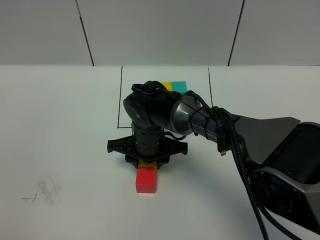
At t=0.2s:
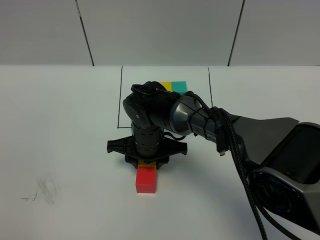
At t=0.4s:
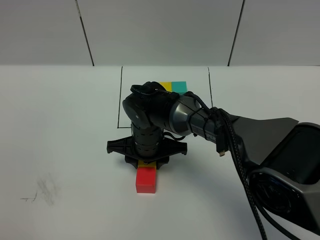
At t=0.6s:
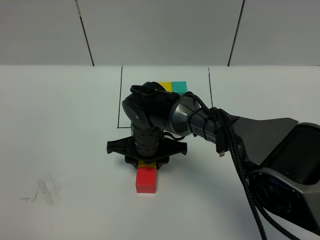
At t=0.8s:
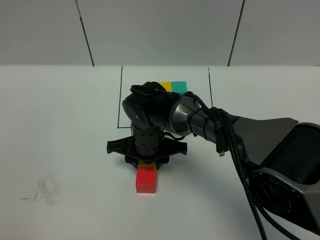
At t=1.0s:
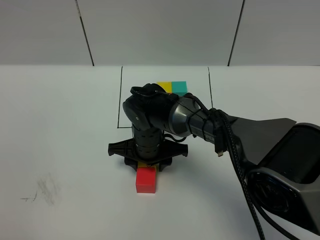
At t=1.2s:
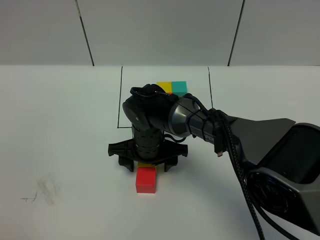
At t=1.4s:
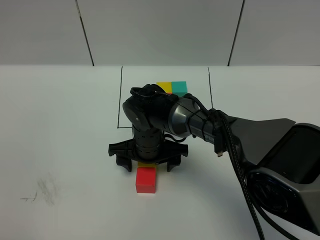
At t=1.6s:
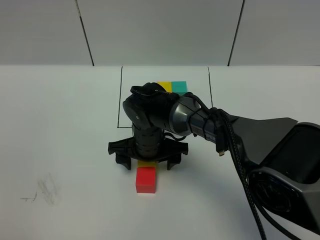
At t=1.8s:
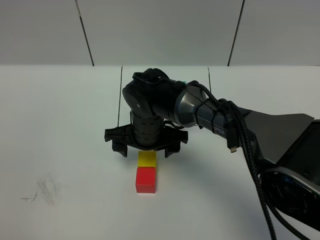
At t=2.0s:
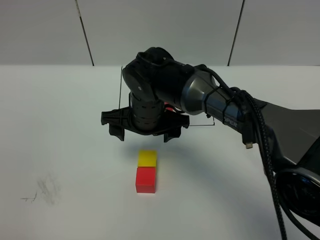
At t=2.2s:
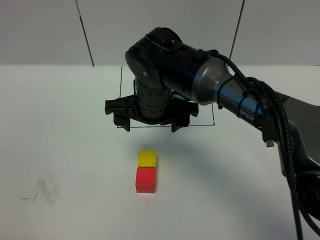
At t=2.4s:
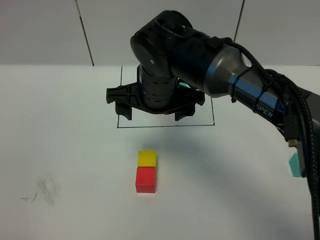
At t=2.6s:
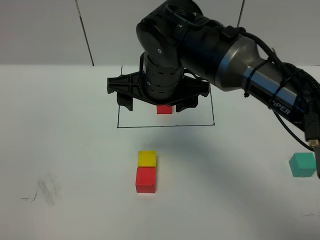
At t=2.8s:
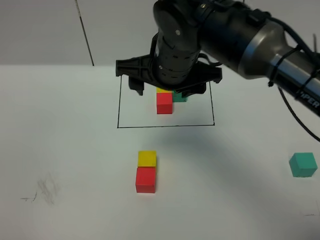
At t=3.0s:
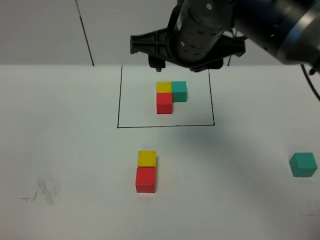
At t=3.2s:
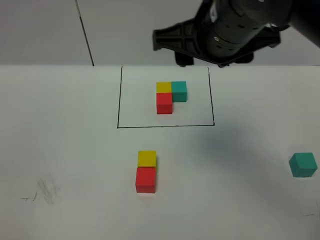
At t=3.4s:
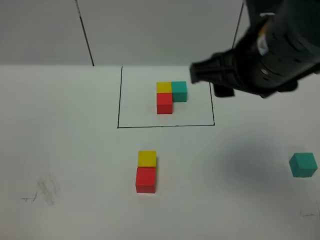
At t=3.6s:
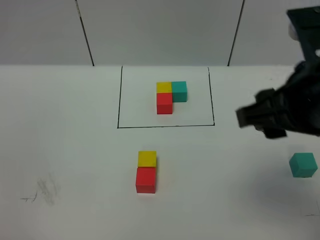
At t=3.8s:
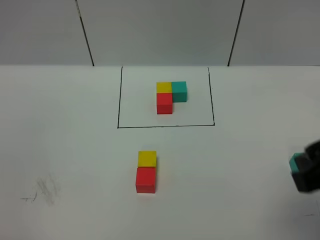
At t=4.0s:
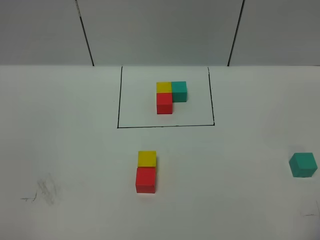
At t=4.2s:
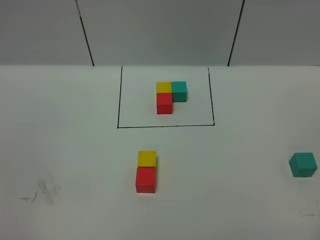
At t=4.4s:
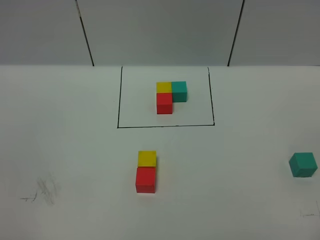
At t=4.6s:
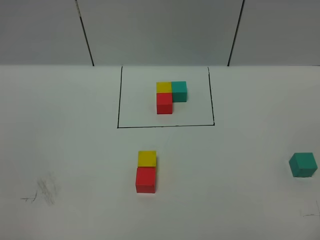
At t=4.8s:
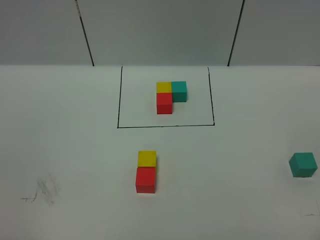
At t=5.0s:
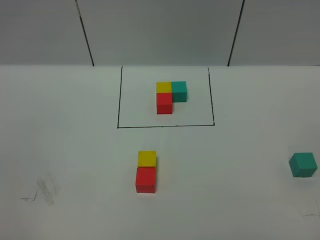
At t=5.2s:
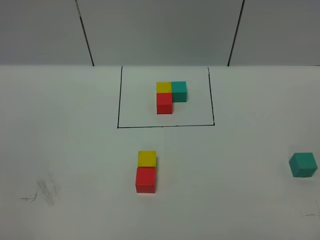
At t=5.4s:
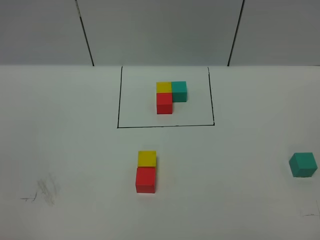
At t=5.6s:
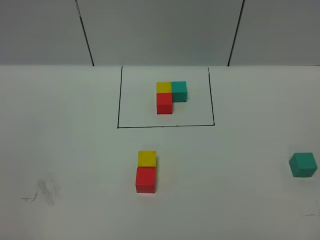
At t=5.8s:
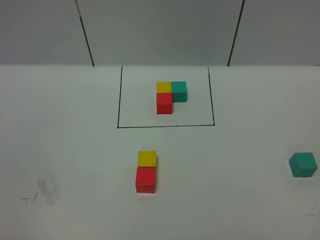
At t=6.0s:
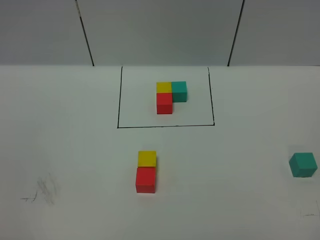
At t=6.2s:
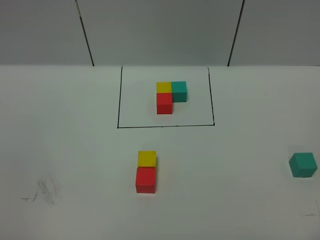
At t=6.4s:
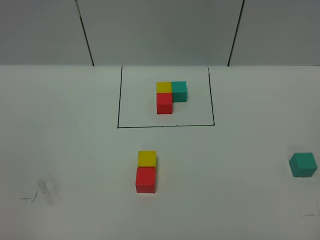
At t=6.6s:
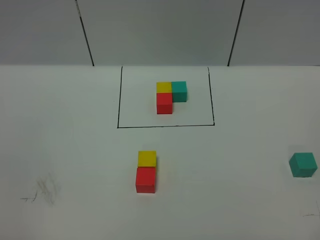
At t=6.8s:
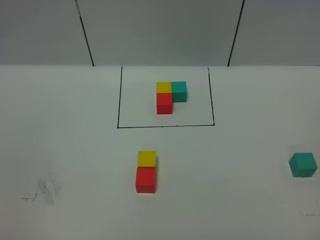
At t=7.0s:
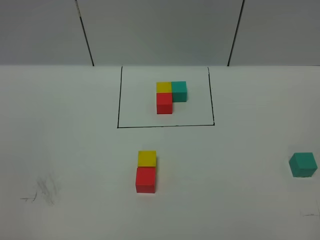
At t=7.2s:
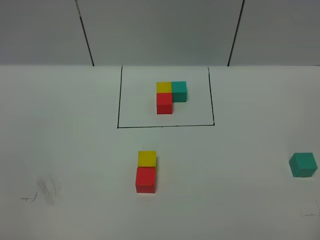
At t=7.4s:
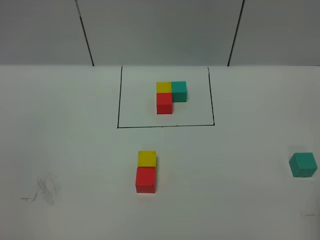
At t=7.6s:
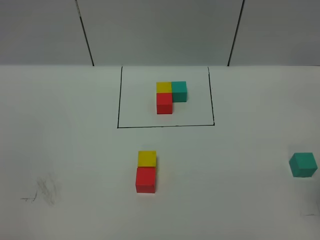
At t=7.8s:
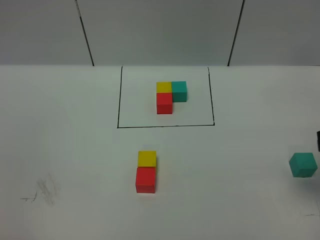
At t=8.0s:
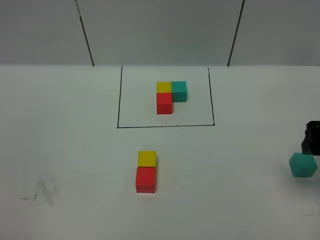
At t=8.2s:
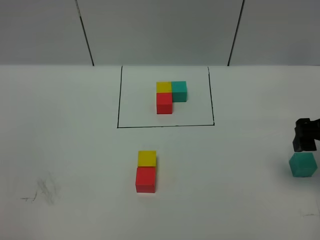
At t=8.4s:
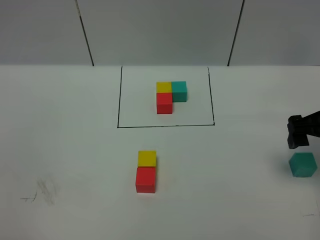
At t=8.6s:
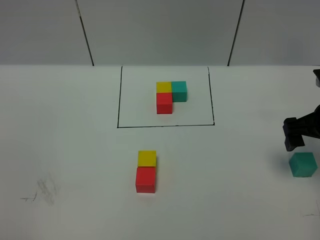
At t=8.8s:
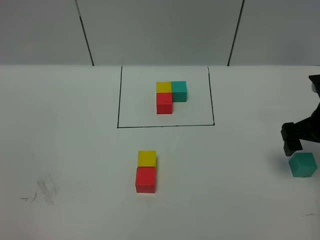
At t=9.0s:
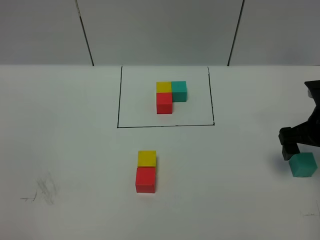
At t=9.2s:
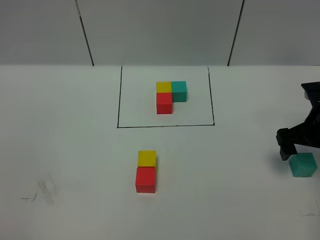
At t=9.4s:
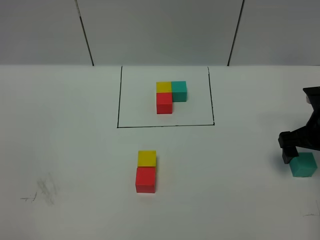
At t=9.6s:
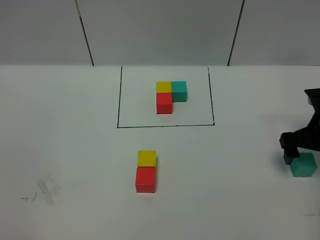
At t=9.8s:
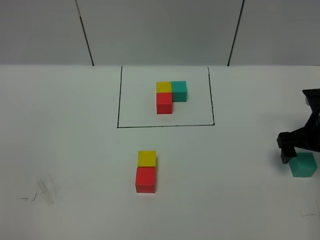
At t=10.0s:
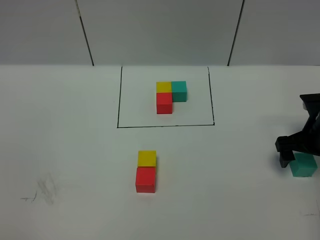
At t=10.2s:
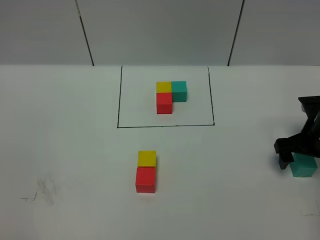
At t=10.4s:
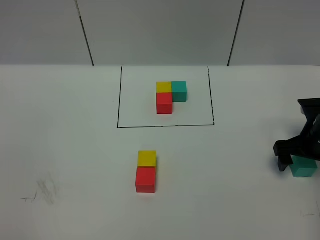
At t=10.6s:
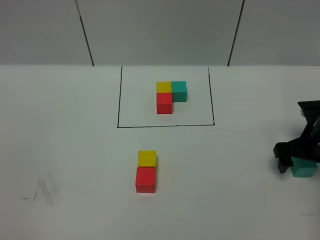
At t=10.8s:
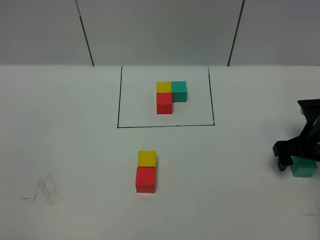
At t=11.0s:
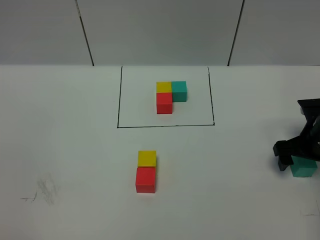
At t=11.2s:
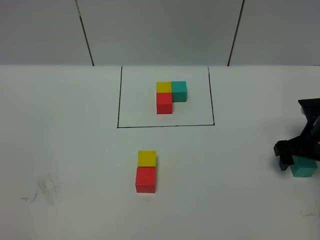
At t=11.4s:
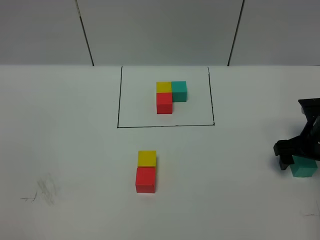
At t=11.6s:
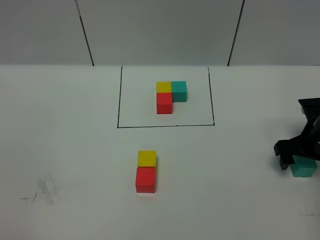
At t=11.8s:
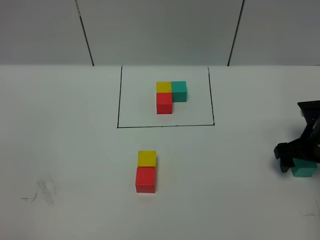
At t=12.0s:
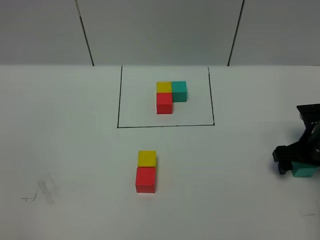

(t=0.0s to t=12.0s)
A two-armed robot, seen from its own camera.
Task of the whole recording: According to the building block template in front, assemble the scattered blocks together.
Step, t=0.0s - t=2.4s: Put the yellow cube in the front of the red cube.
t=0.0s - t=1.6s: The right gripper opens up.
t=1.6s - t=3.0s: The right gripper moves upward, about 25 cm.
t=3.0s - t=4.4s: The right gripper moves backward and to the right, about 35 cm.
t=7.6s - t=9.0s: The right gripper shifts roughly 20 cm forward and downward, and opens.
t=9.0s - t=10.4s: The right gripper heads downward, covering approximately 5 cm.
t=10.4s - t=12.0s: The grippers move only a little.

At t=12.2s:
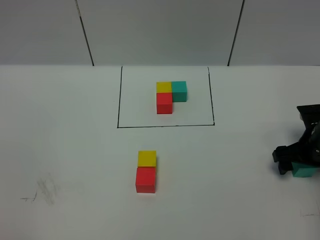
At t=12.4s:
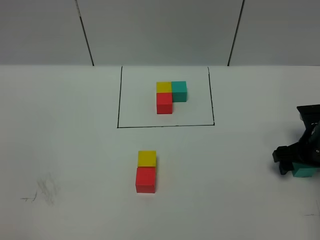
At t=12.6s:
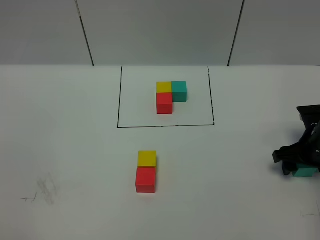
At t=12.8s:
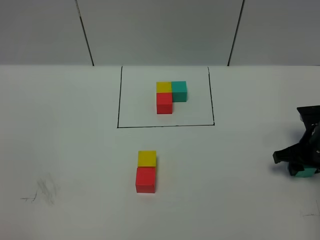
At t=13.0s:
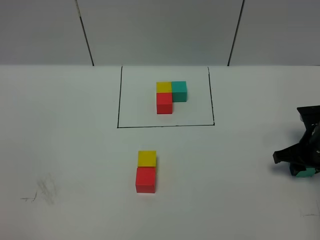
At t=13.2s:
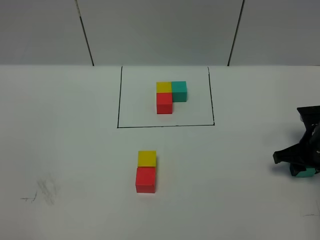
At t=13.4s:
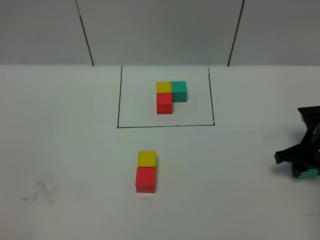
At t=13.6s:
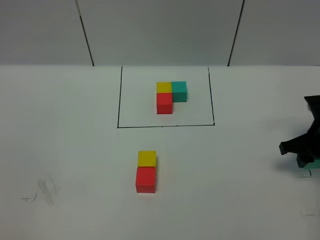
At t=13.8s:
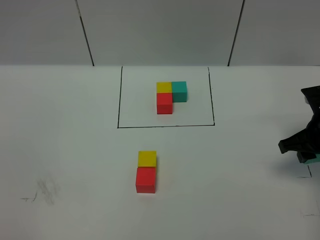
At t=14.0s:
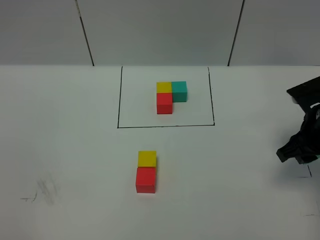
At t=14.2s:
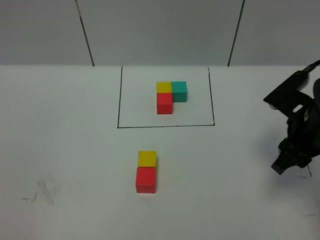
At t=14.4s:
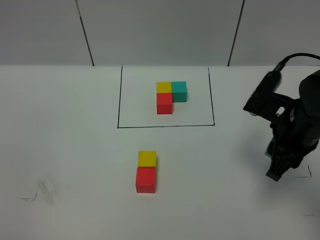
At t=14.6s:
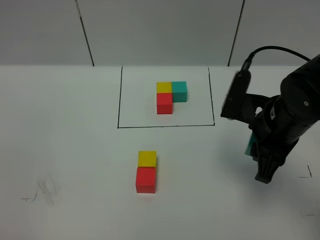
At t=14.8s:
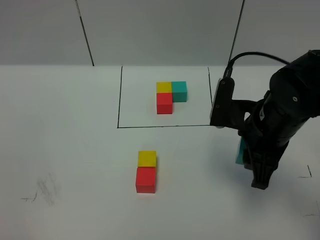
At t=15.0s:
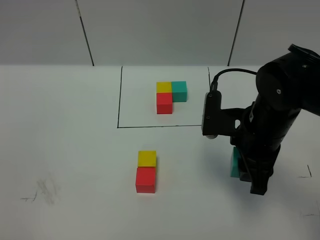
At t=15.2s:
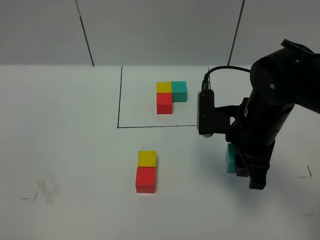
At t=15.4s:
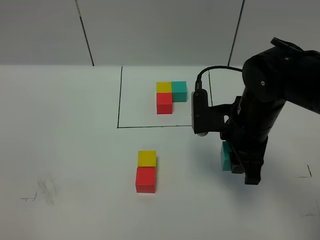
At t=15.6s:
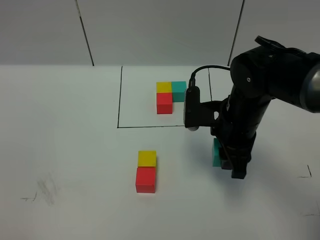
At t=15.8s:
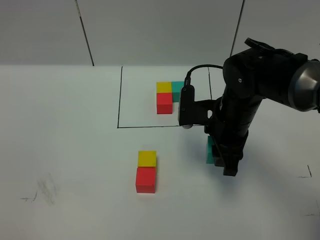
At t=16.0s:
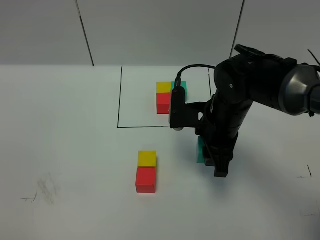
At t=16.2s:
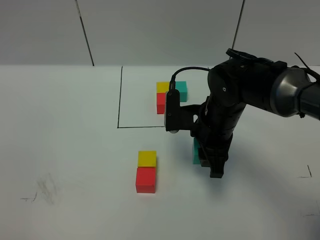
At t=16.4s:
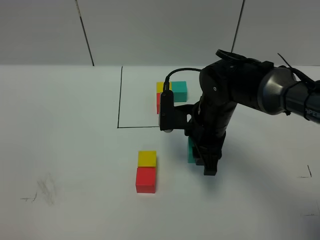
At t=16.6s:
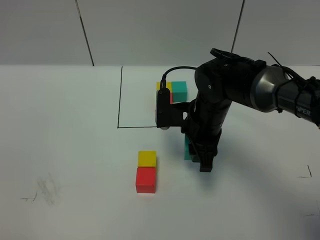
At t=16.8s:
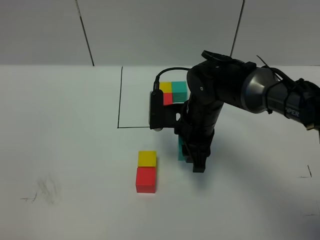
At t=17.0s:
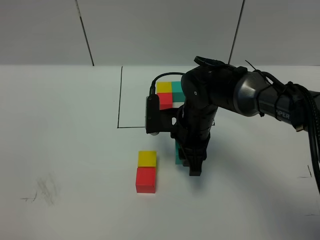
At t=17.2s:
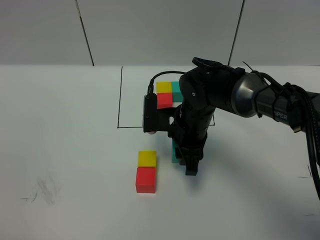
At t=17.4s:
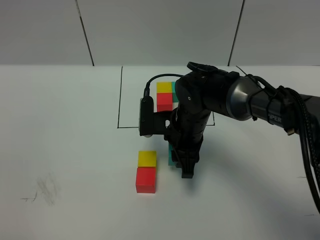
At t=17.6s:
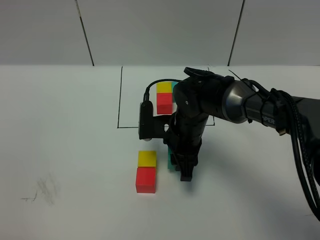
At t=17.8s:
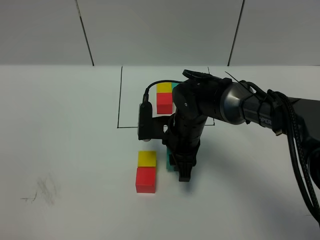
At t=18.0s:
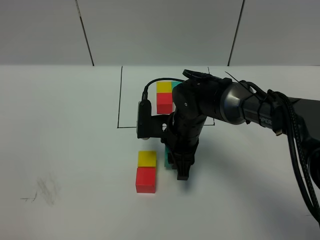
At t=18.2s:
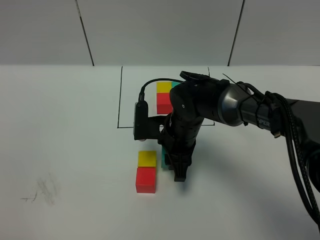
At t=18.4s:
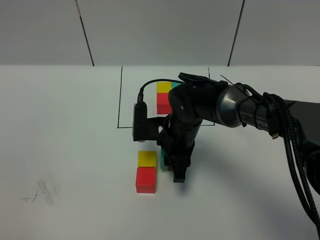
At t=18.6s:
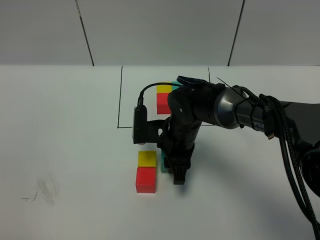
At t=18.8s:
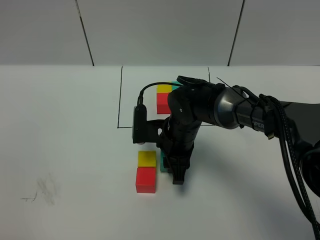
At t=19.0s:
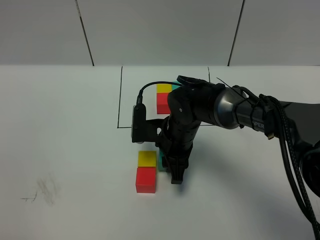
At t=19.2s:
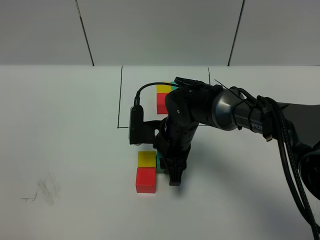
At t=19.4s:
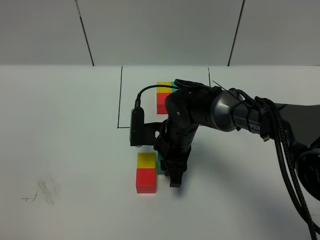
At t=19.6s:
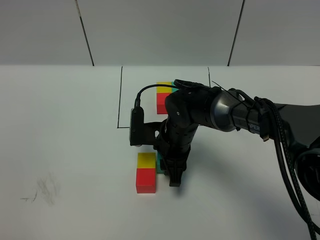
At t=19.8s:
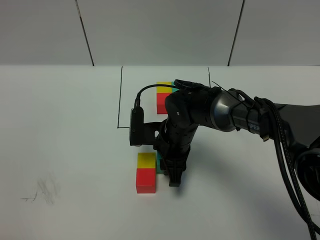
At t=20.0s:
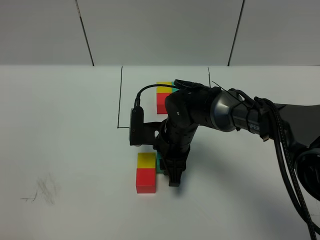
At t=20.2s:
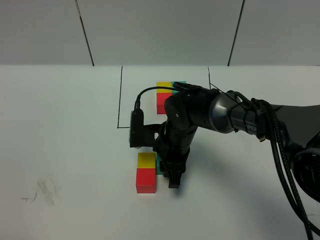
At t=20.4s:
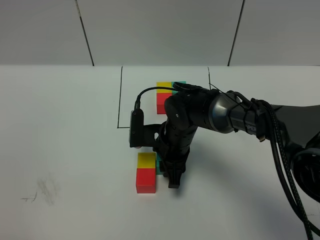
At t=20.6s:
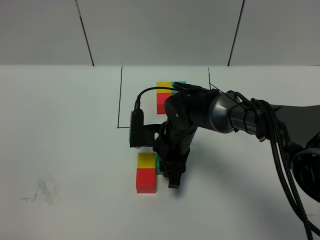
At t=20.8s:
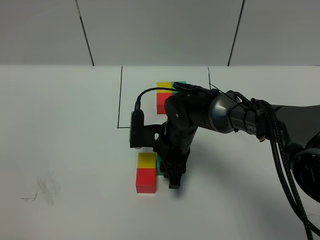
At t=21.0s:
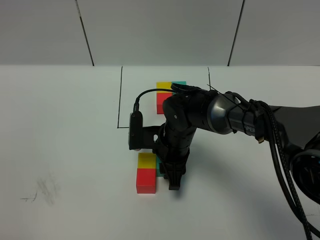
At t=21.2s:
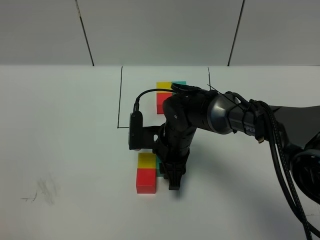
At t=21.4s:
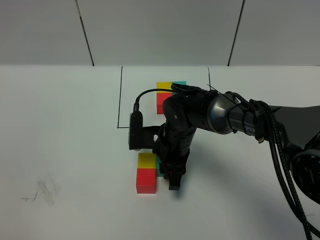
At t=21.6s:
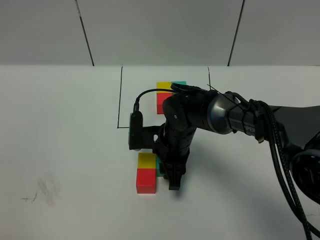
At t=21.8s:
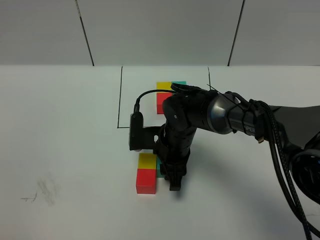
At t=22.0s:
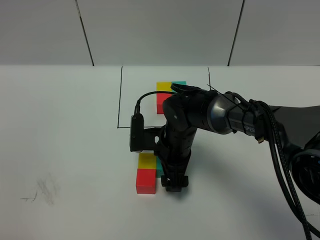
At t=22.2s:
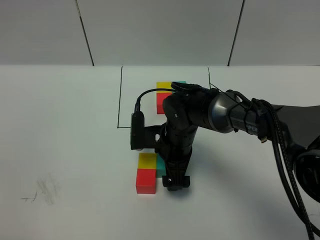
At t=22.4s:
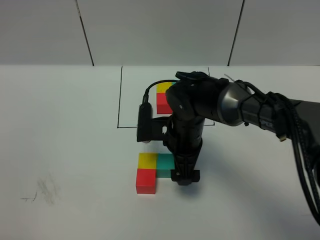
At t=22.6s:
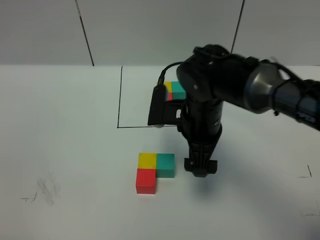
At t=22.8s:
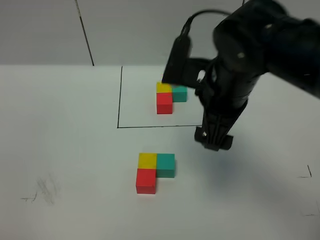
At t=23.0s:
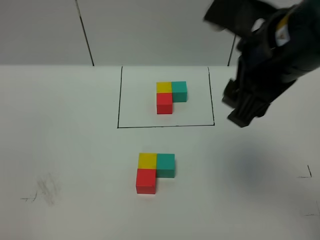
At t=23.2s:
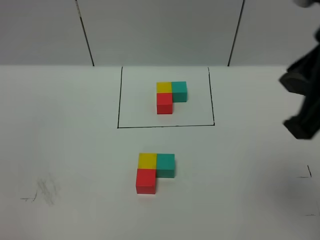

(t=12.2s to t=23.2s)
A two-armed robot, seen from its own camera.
Task of the whole recording: According to the building block template in front, assemble the scattered blocks together.
Step, t=12.2s - t=22.6s: Put the green cube on the right of the yellow cube.
t=12.2s - t=13.8s: The right gripper shifts about 5 cm upward, and closes up.
t=13.8s - t=15.4s: The right gripper goes some 15 cm to the left.
t=15.4s - t=17.0s: The right gripper goes about 10 cm to the left and downward.
t=17.0s - t=18.4s: There are only small adjustments of the grippers.
t=18.4s - t=20.0s: Both grippers stay put.
t=20.0s - t=21.6s: Both grippers stay put.
t=21.6s - t=23.2s: The right gripper shifts about 40 cm upward, backward and to the right, and closes its fingers.
